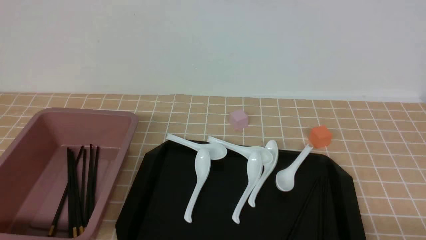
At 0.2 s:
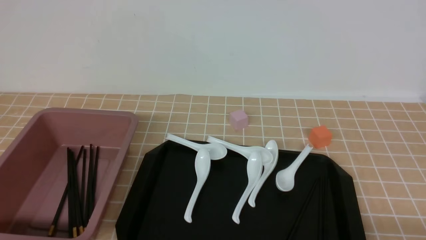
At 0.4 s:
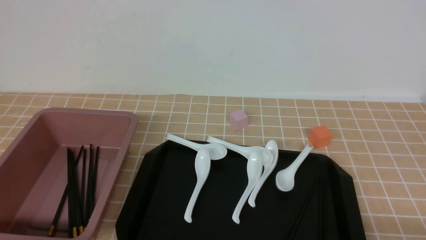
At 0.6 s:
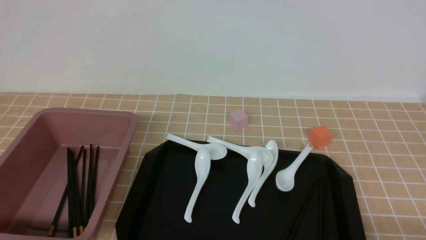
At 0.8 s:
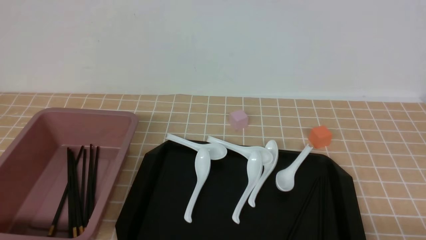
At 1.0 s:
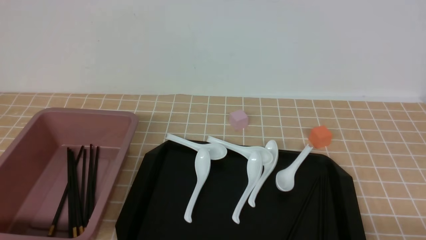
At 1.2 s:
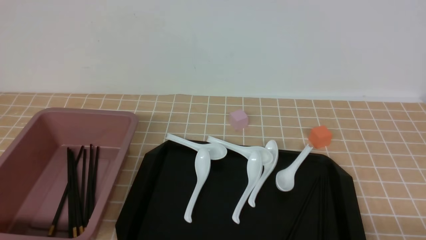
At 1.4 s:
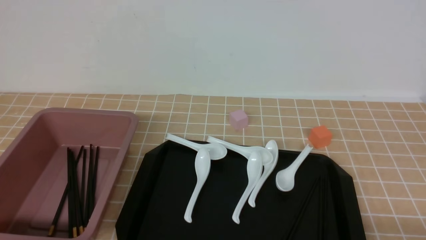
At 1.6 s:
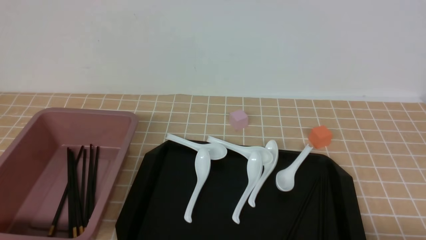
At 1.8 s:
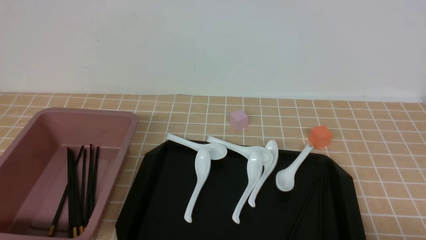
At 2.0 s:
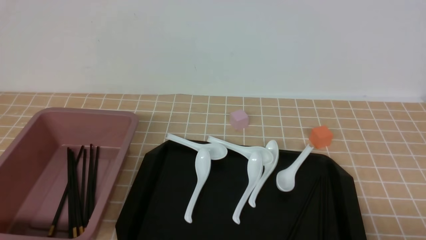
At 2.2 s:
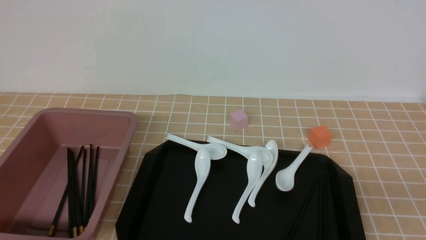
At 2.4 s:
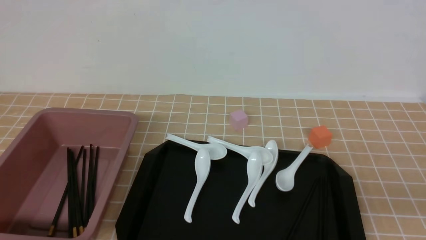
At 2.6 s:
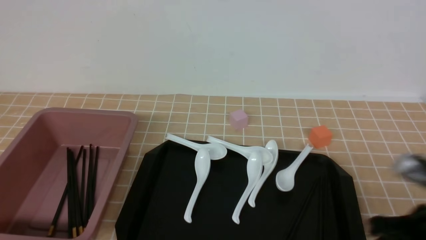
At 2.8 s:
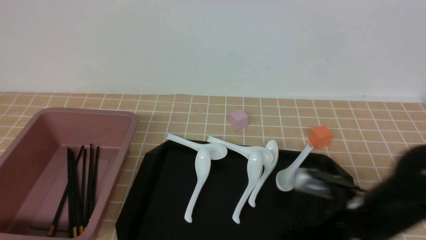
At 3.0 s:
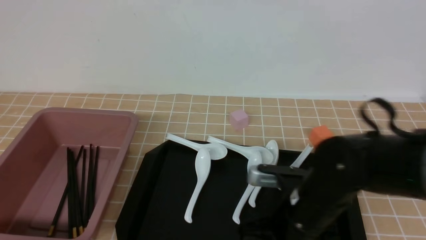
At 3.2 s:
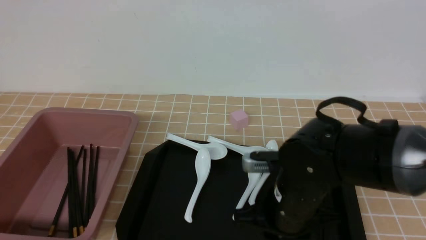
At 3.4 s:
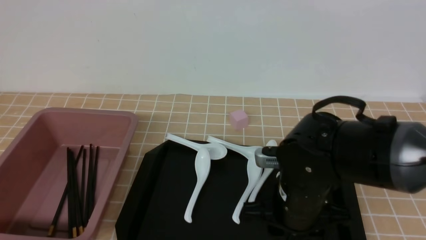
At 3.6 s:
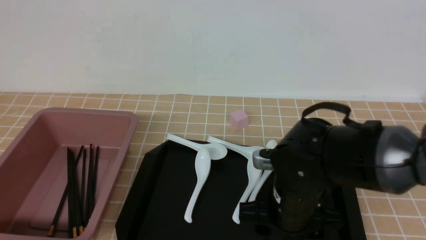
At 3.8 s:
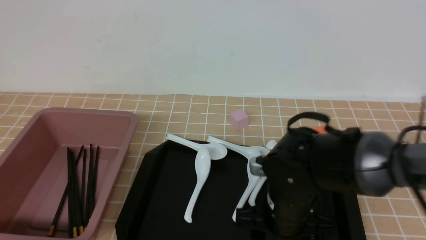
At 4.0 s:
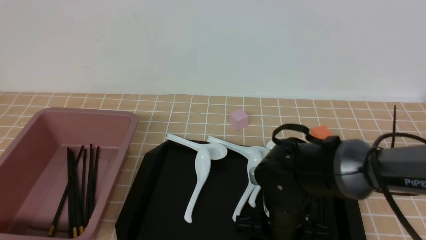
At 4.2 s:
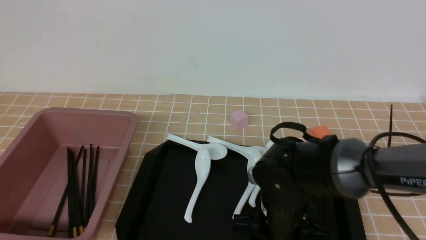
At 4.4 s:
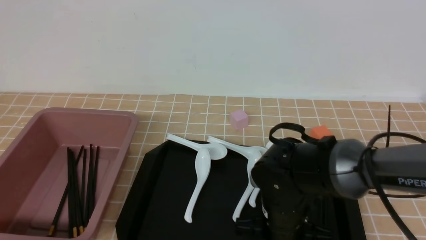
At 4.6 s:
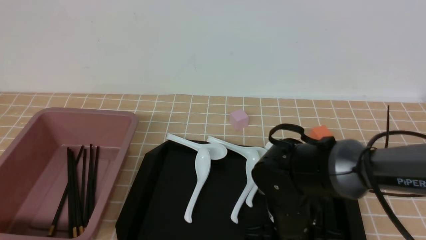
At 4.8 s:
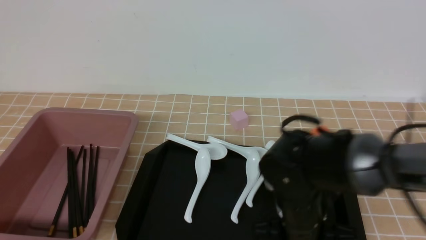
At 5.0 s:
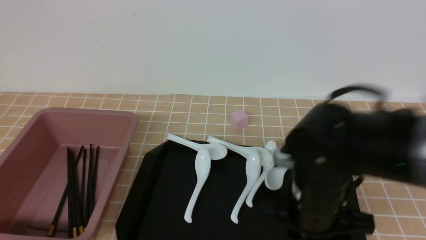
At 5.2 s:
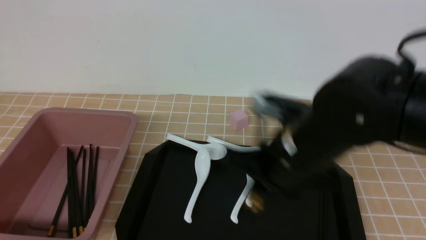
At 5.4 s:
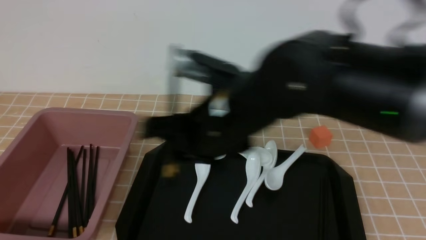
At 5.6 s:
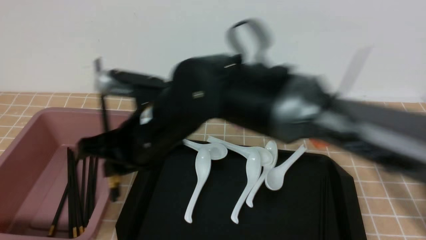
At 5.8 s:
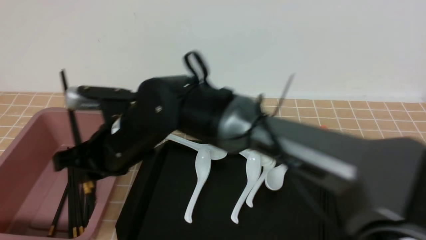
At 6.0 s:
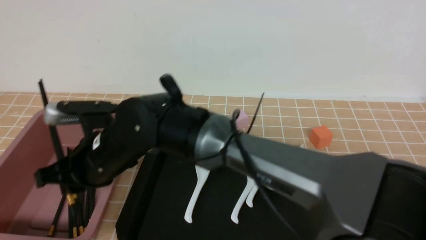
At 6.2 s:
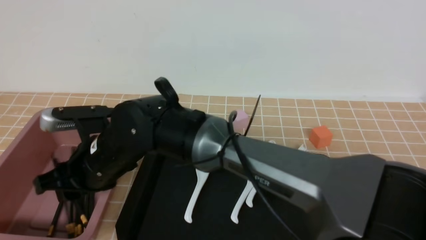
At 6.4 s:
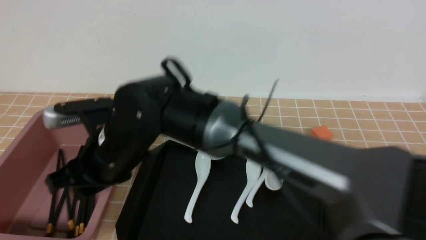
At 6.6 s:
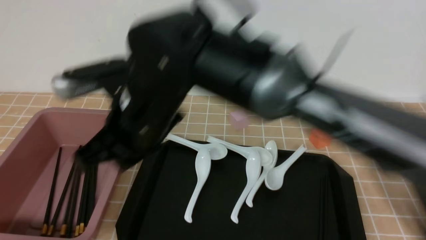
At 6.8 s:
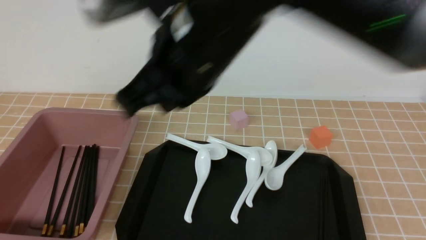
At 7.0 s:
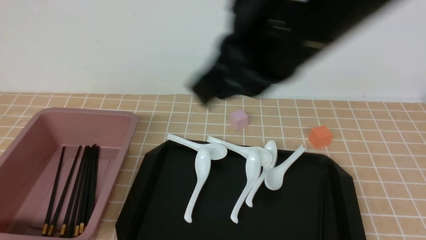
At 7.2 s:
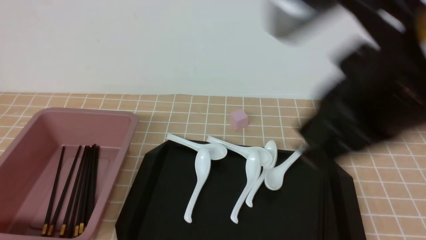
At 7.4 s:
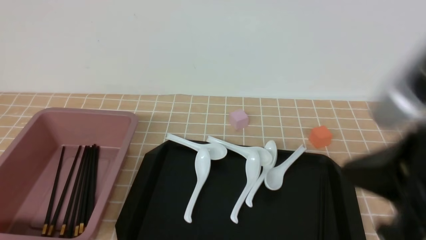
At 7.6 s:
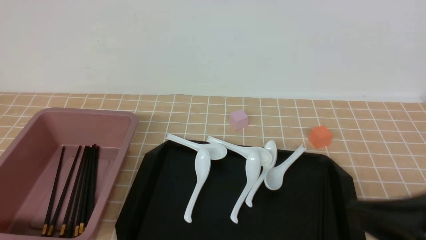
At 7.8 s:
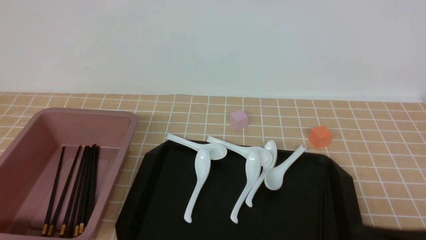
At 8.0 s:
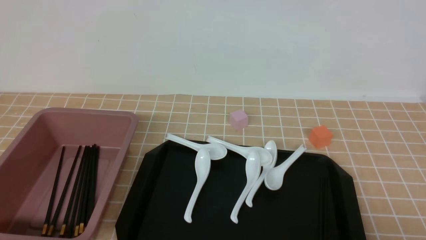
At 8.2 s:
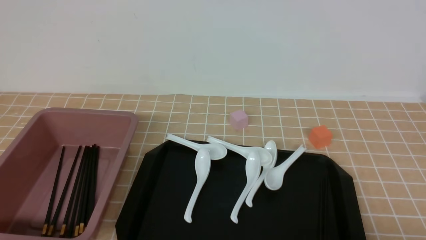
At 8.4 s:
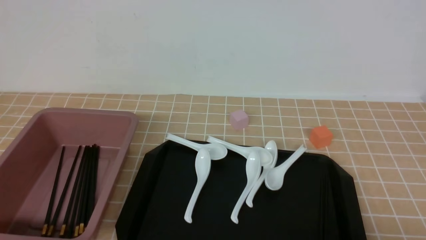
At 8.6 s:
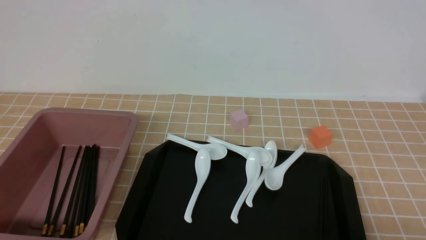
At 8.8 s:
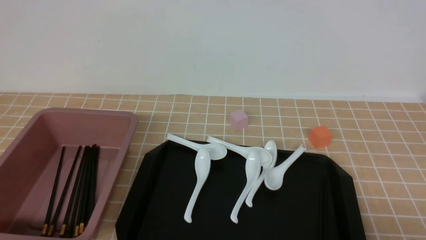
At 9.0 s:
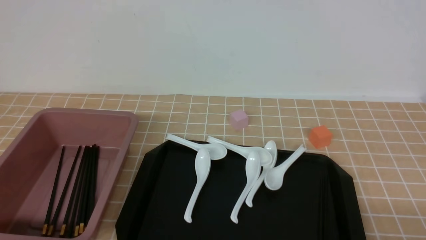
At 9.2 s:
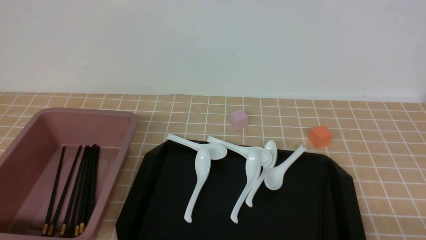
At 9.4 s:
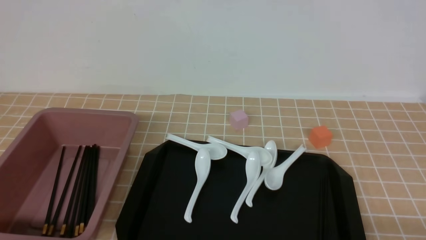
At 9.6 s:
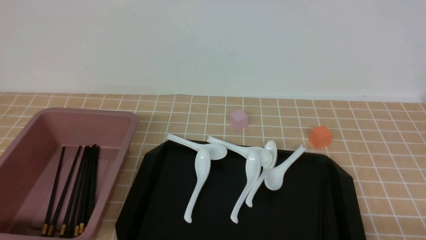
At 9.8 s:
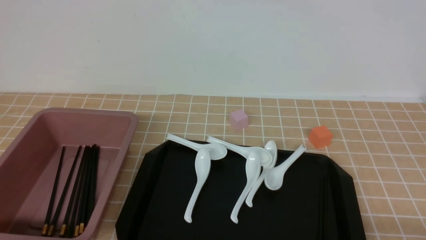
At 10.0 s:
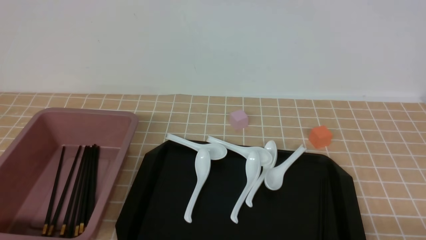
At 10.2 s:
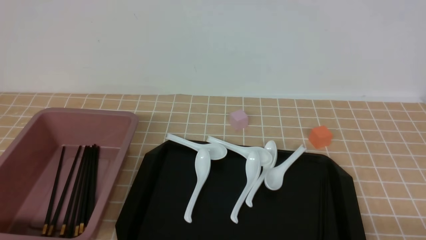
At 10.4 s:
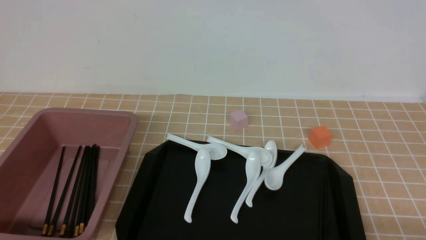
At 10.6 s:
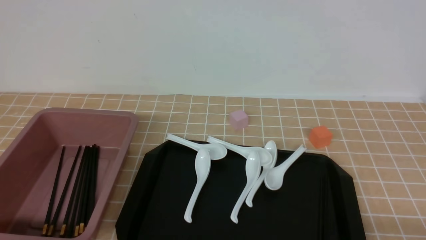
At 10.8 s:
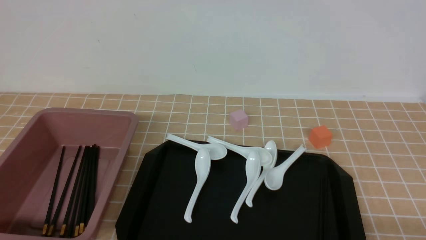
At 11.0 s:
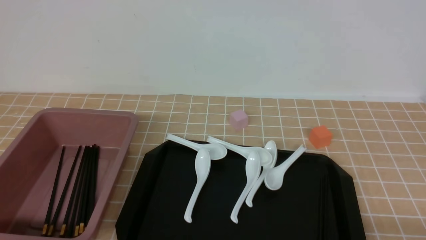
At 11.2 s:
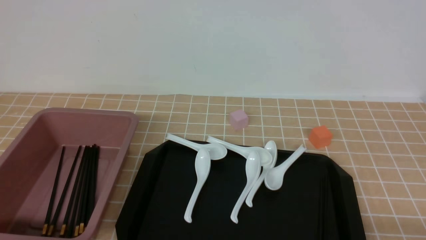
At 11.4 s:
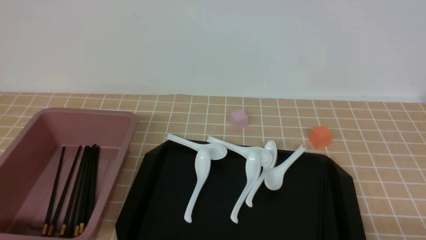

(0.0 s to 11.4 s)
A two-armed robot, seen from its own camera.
Step, 0.0 s - 5.2 s: use the right arm to grab a pair of chopsticks.
Step, 5.4 s - 6.6 s: use the right arm to put the chopsticks into the lunch box.
1.4 s - 2.8 s: The right gripper travels forward and to the left by roughly 20 cm, and closes.
2.8 s - 4.2 s: The right gripper is displaced to the left and downward by about 10 cm, and opens up.
4.2 s - 5.6 s: The right gripper goes some 20 cm to the left and upward, and closes its fingers.
5.6 s - 7.2 s: The right gripper goes approximately 30 cm to the right, upward and backward.
7.2 s - 8.6 s: The right gripper travels downward, to the right and backward by approximately 25 cm.
10.0 s - 11.4 s: Both grippers stay about where they are.
